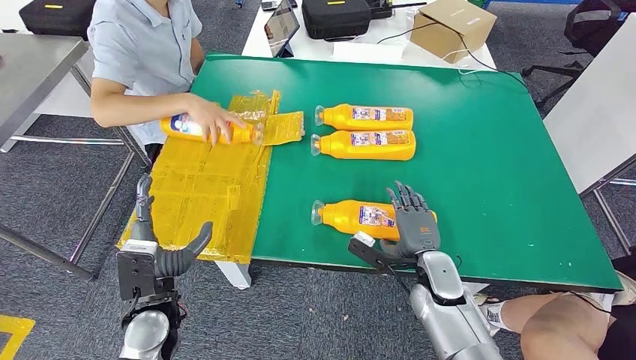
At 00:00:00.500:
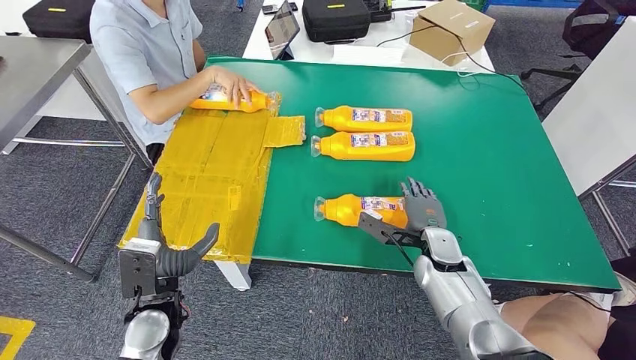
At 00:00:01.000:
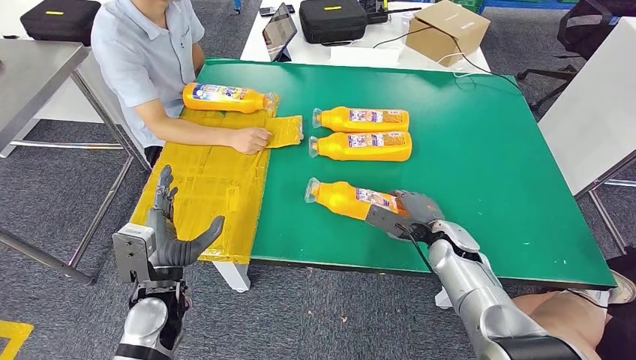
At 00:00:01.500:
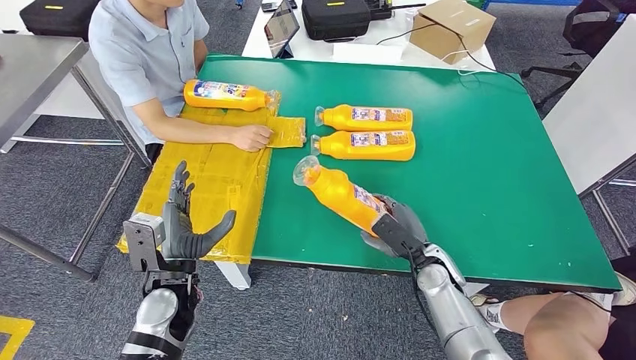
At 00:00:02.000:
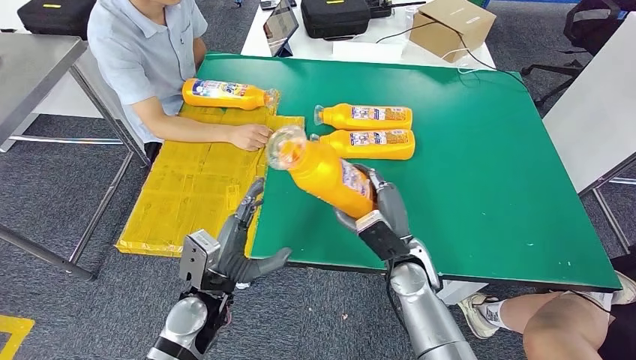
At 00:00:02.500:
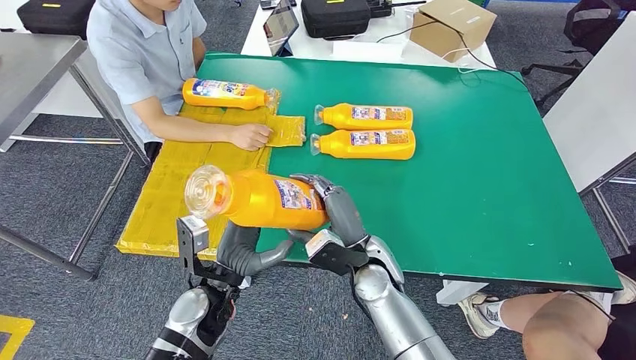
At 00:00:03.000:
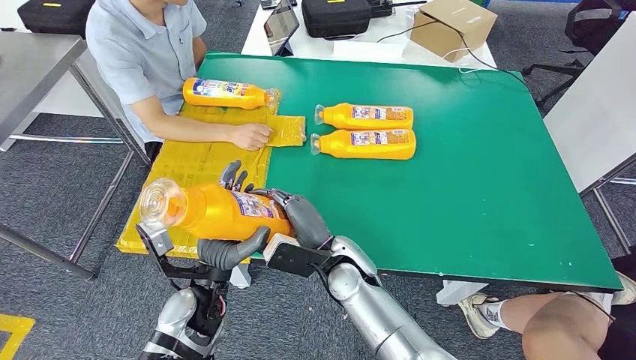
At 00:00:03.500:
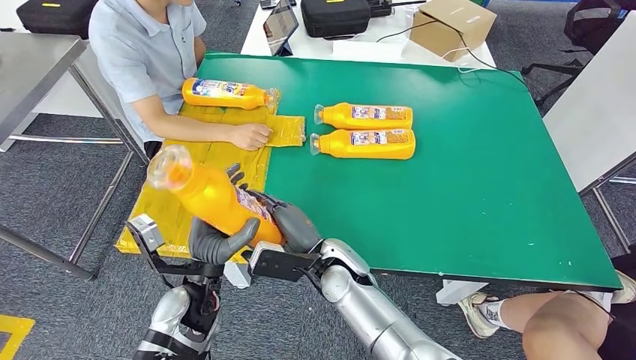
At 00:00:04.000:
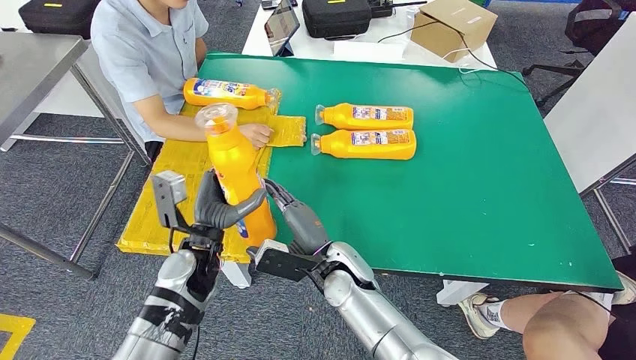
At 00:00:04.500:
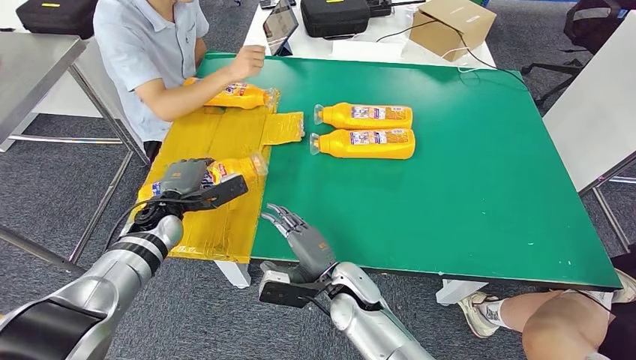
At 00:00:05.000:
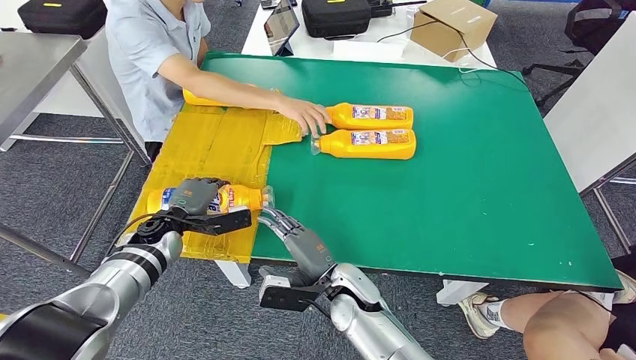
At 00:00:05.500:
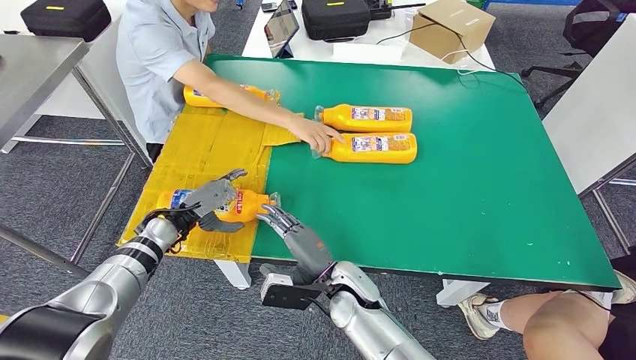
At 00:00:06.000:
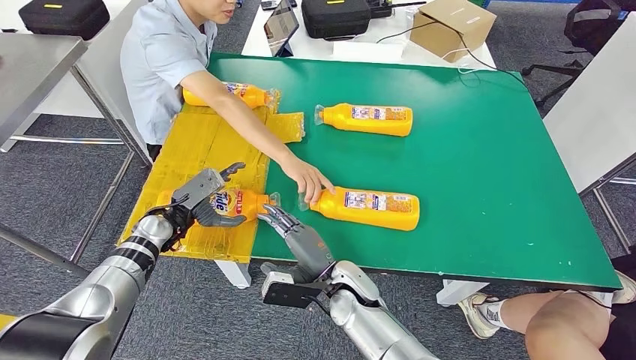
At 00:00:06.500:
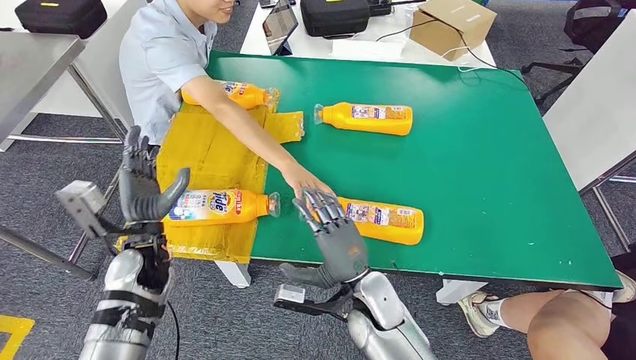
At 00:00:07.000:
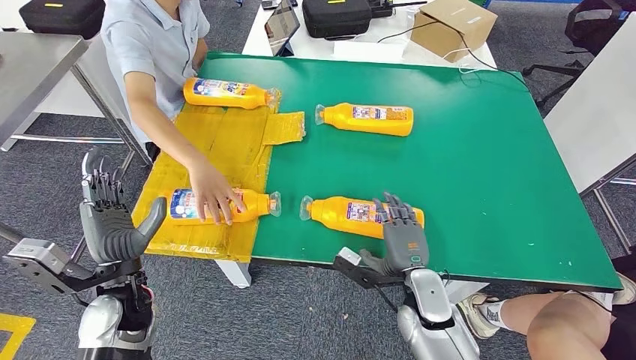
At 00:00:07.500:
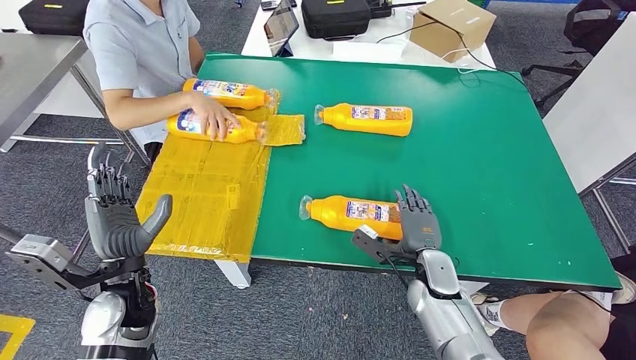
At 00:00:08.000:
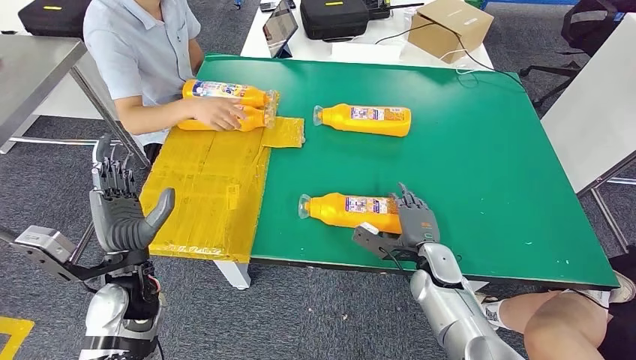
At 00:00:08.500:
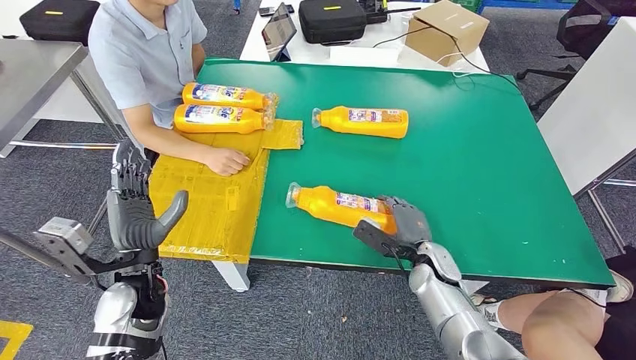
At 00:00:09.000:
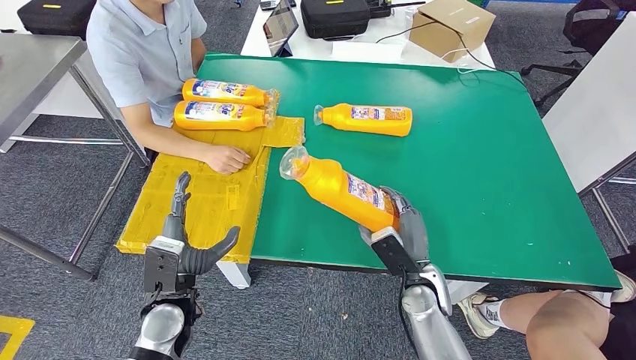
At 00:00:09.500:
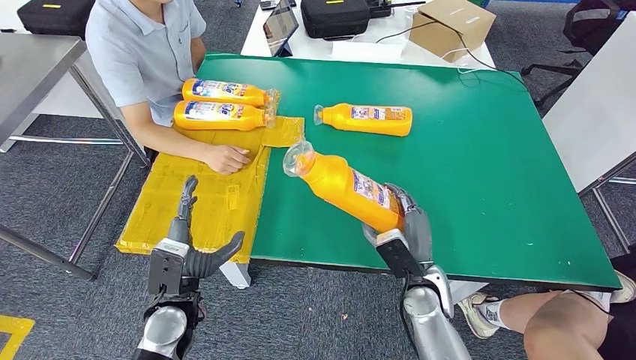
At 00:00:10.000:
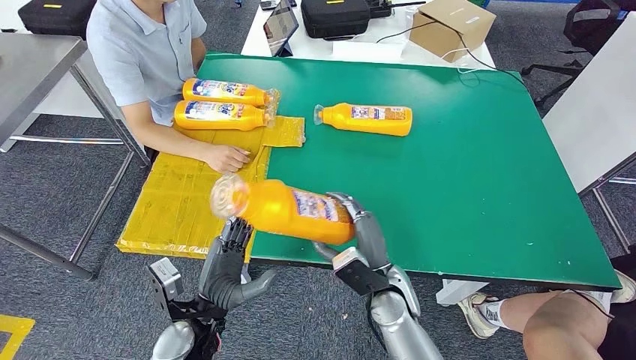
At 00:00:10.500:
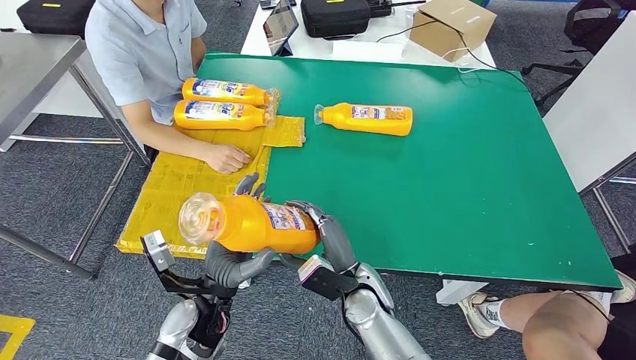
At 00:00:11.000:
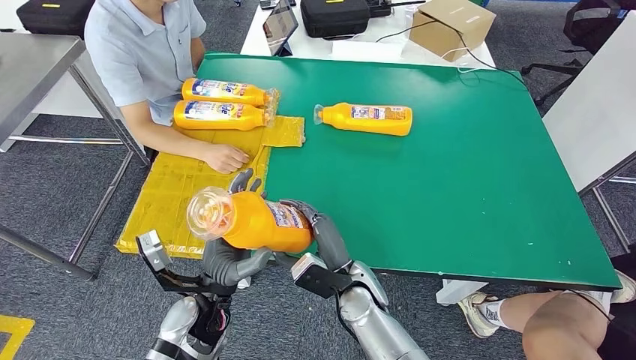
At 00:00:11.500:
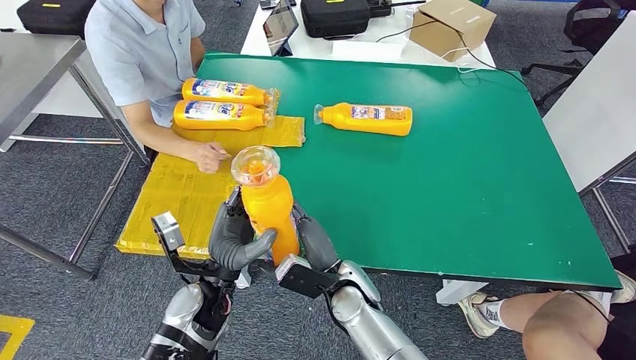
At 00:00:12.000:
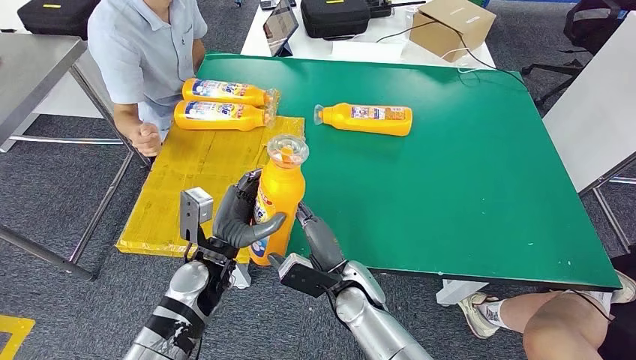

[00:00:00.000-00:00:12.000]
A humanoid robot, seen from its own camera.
Step, 00:00:00.500 to 00:00:03.500: Pick up the fast-moving consumer goods bottle from the table.
Step, 00:00:04.500 to 00:00:07.000: Flip the fast-moving consumer goods bottle to the front side.
Step, 00:00:08.000 to 00:00:11.000: Pick up the fast-moving consumer goods bottle from the table.
00:00:00.000 to 00:00:02.000: The left hand moves to the right, some 5 cm. The right hand is displaced to the left by about 5 cm.
00:00:10.000 to 00:00:12.000: The right hand heads to the left, covering roughly 5 cm. Meanwhile the left hand goes about 10 cm forward.

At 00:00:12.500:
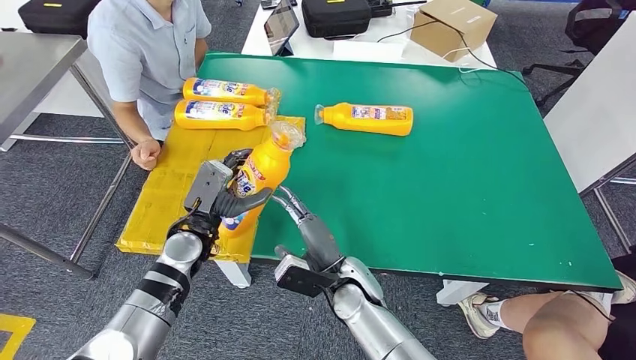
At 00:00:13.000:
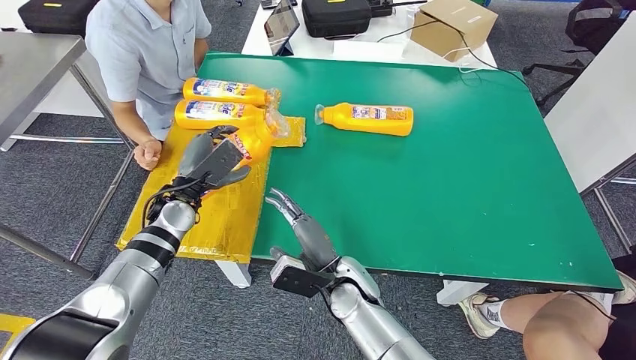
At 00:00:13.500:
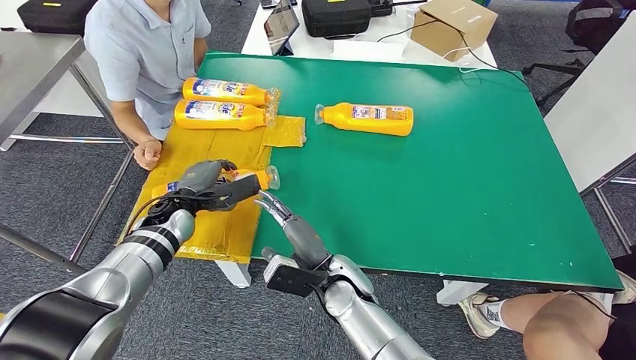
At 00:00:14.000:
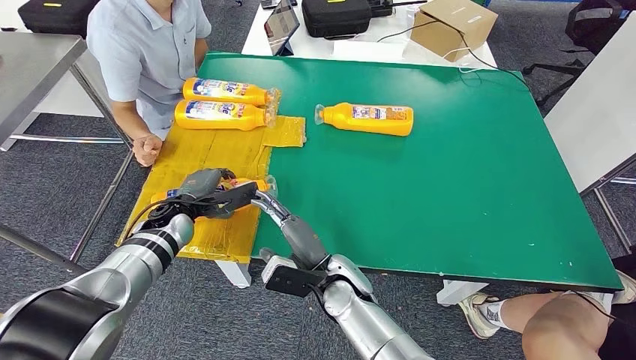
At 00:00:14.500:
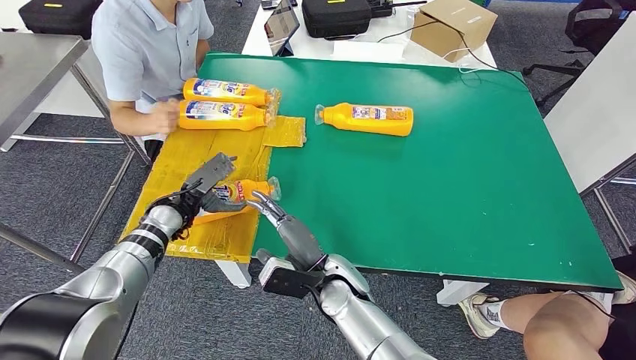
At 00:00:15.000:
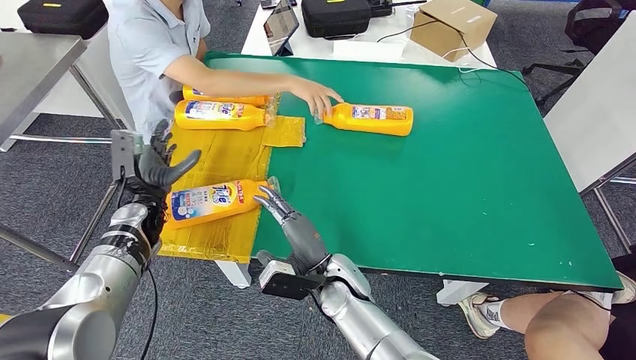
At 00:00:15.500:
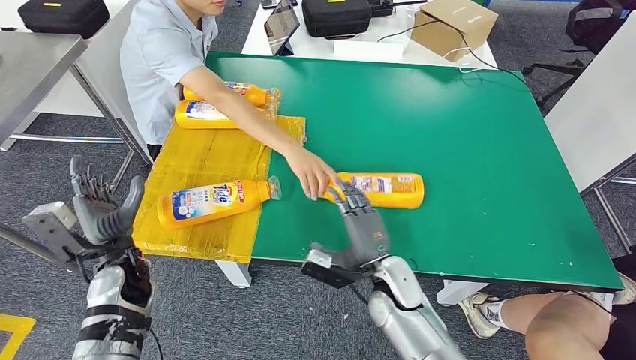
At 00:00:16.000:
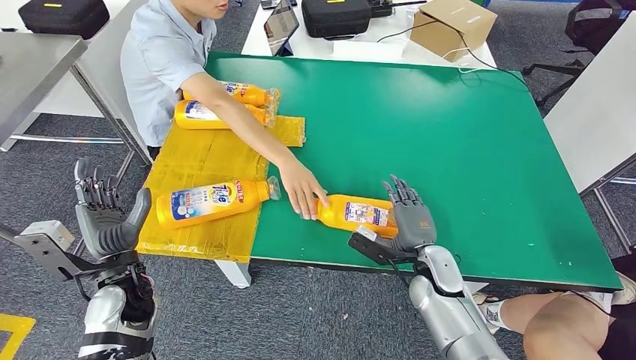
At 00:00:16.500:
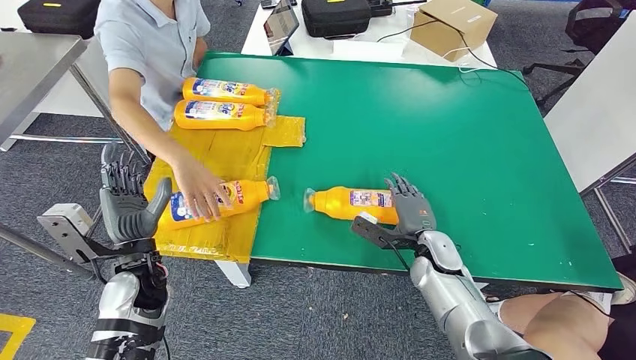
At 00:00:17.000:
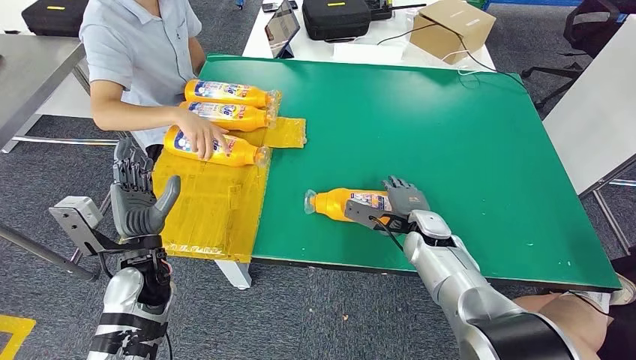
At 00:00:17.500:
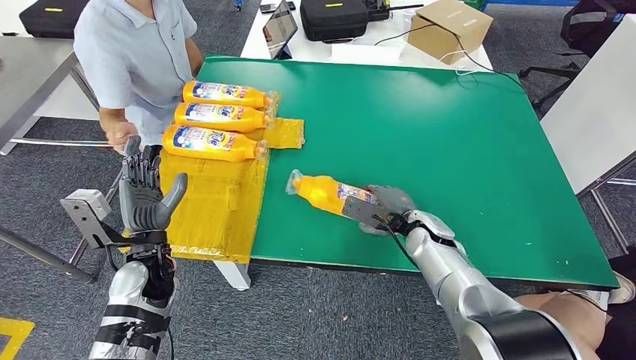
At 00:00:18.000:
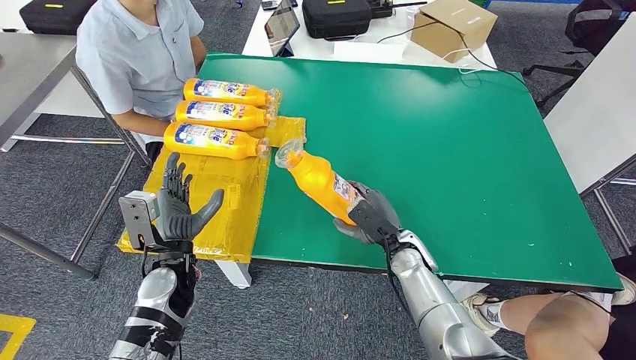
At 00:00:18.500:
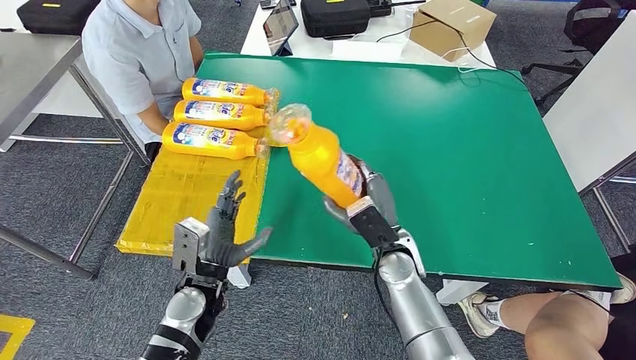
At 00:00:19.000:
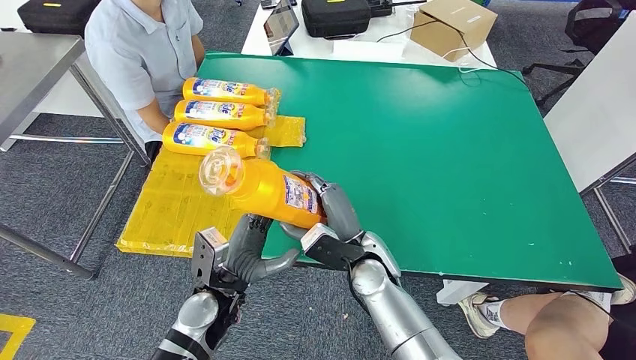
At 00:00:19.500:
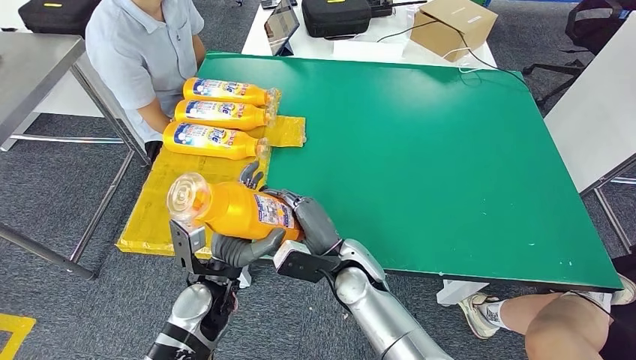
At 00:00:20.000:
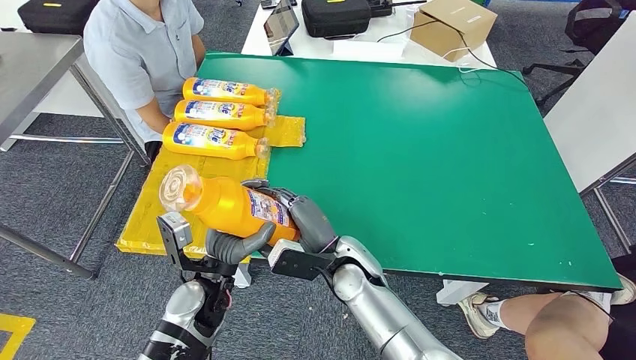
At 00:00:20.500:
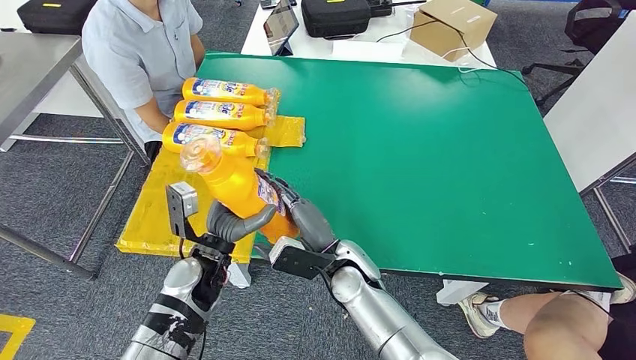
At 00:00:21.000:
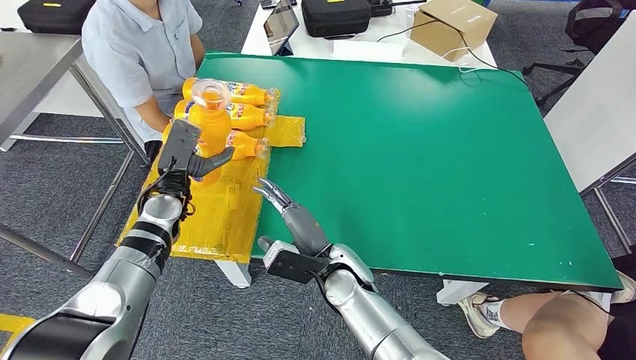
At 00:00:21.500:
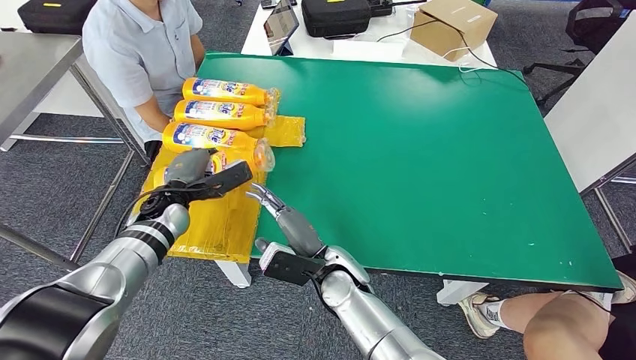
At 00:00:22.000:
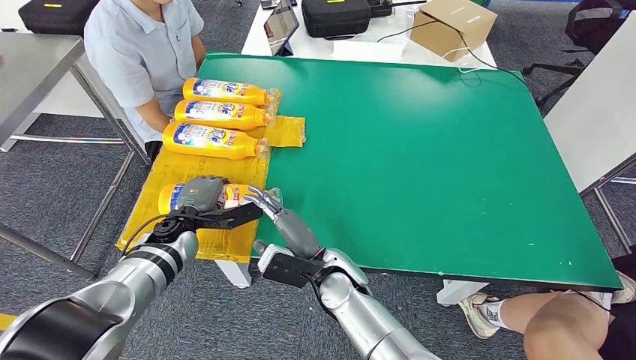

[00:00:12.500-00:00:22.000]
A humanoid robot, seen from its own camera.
Step, 00:00:12.500 to 00:00:14.500: Flip the fast-moving consumer goods bottle to the front side.
Step, 00:00:17.500 to 00:00:20.000: Pick up the fast-moving consumer goods bottle from the table.
00:00:12.500 to 00:00:14.500: The left hand heads to the left and forward, covering approximately 10 cm.
00:00:20.000 to 00:00:22.000: The left hand shifts approximately 15 cm forward and to the left.
